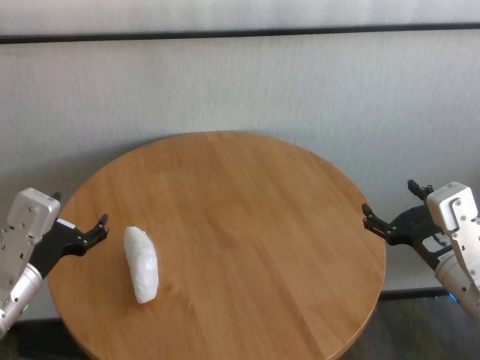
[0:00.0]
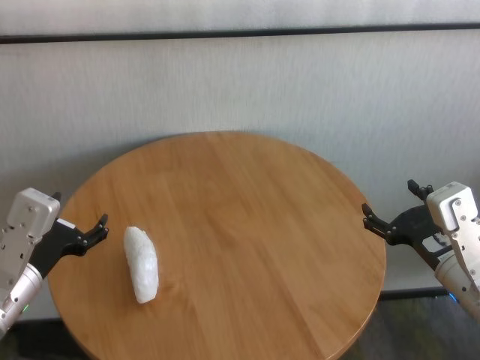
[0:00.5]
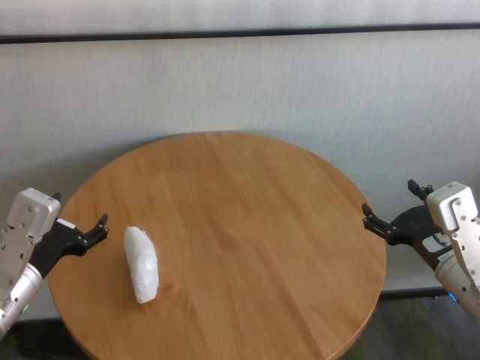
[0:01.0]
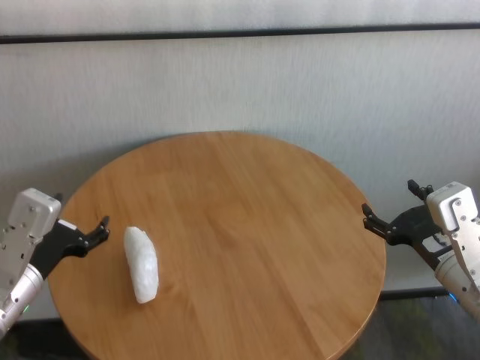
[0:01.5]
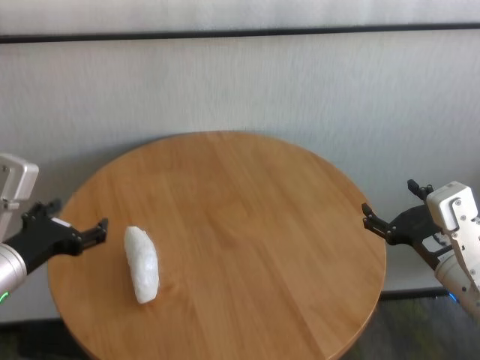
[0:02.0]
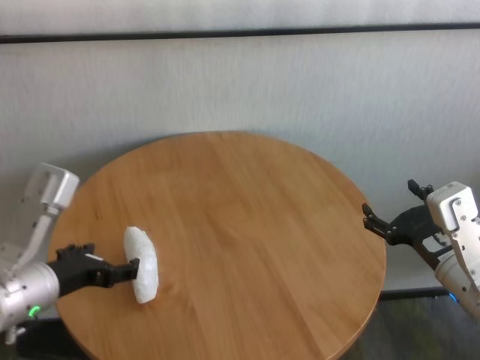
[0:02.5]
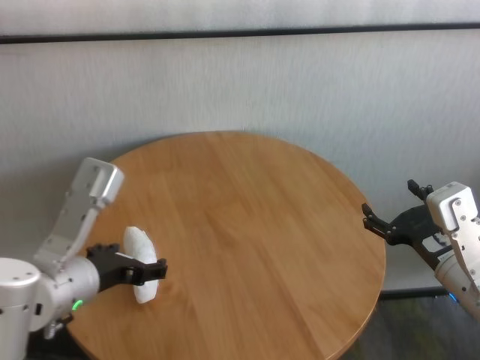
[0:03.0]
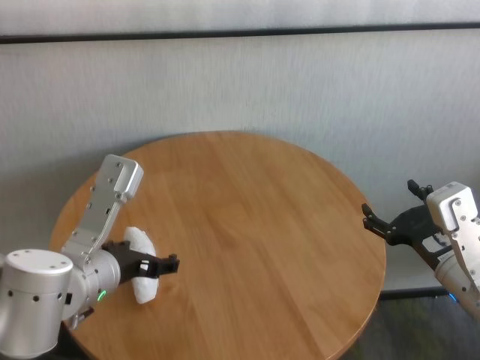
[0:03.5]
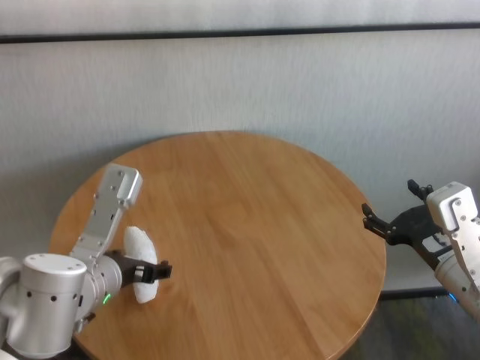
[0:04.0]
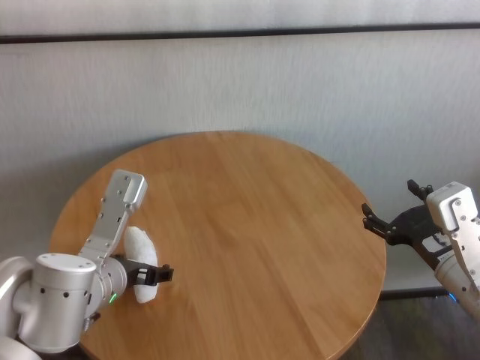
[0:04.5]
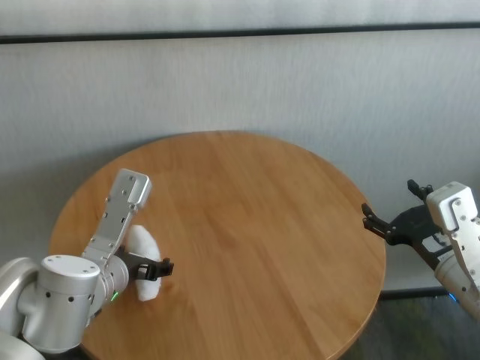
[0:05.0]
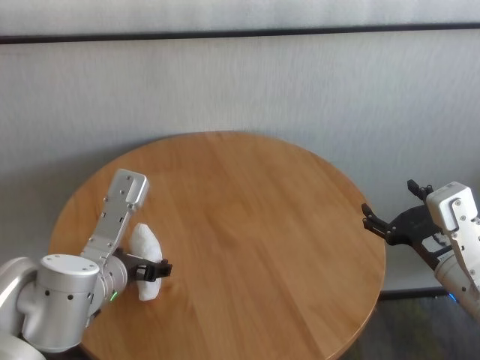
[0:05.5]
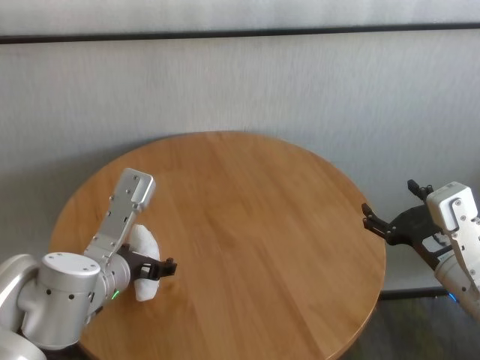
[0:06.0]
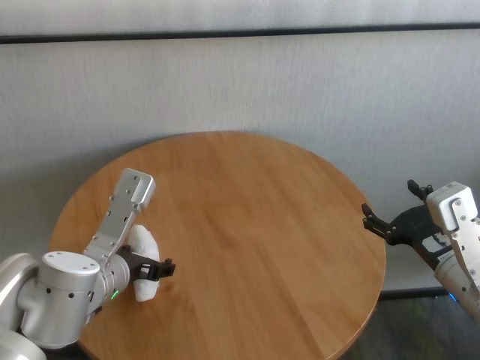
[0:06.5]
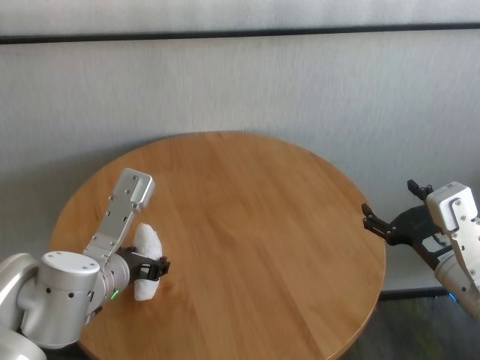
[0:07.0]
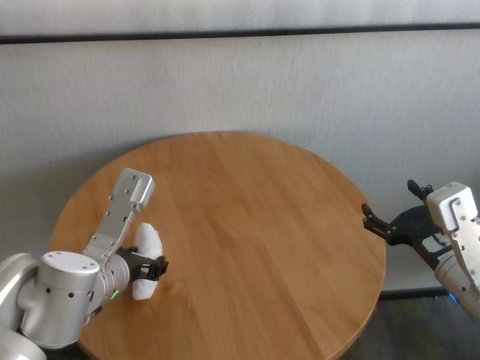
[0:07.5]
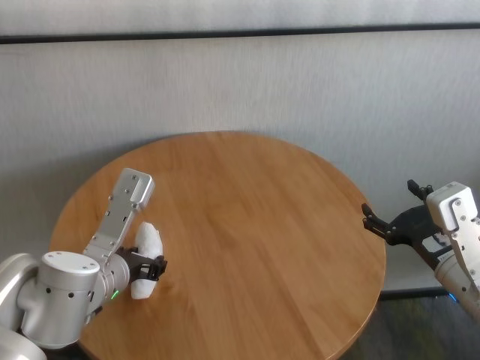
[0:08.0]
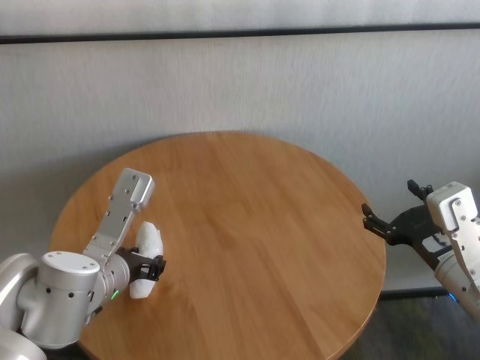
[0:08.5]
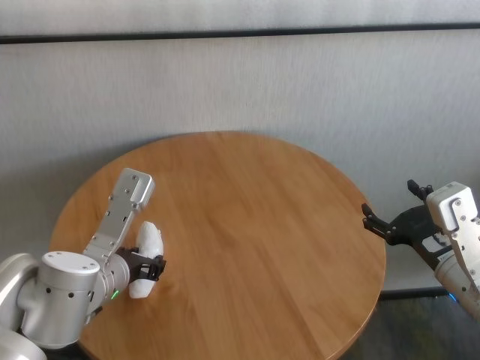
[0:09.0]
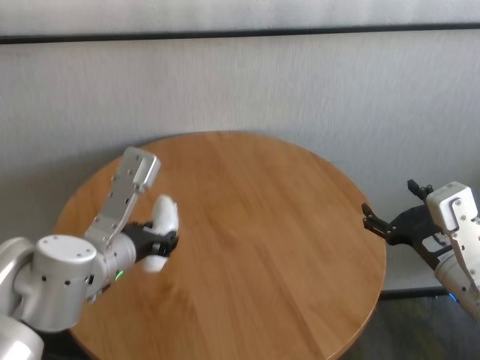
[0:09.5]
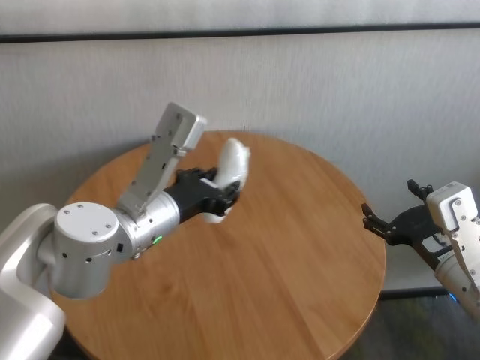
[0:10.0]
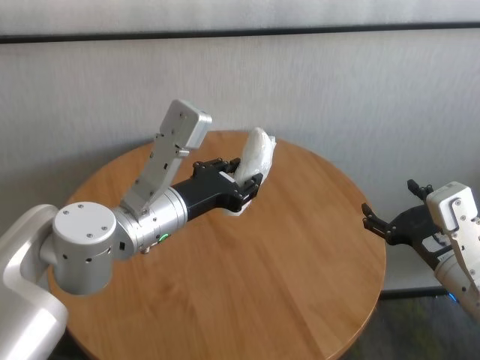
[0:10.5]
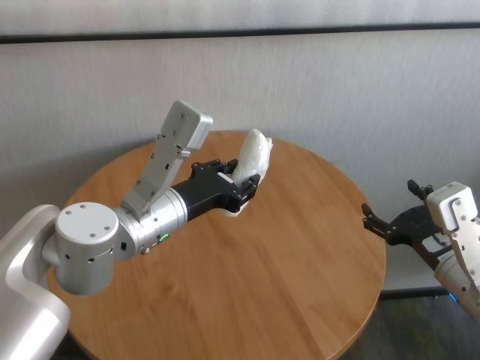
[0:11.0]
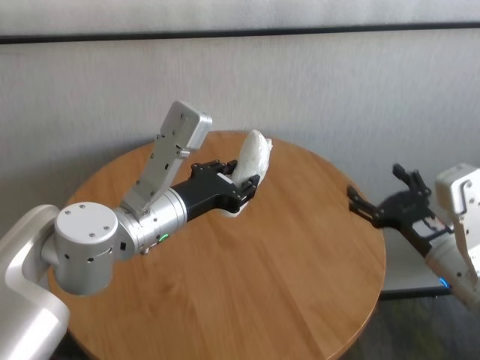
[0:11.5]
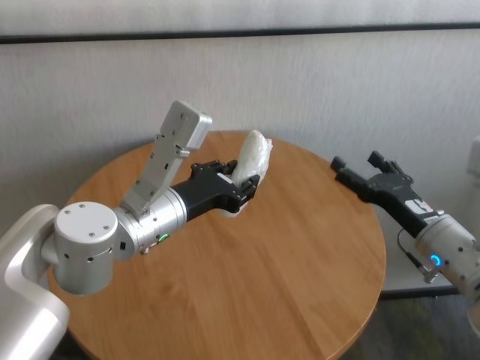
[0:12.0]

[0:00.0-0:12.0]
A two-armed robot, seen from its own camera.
Task of the whole recording: One hand took the sandbag from the other hand and placed it on the table.
Step, 0:00.0 to 0:09.0: Grasp the paper ball with left gripper.

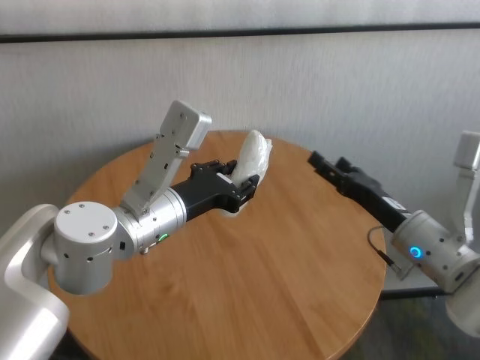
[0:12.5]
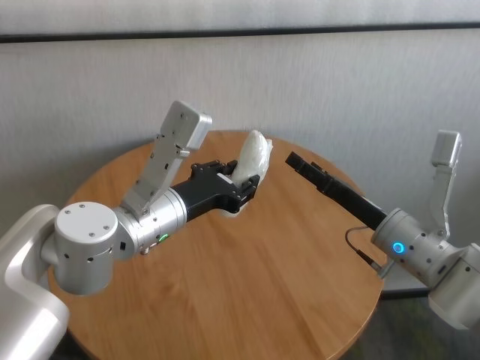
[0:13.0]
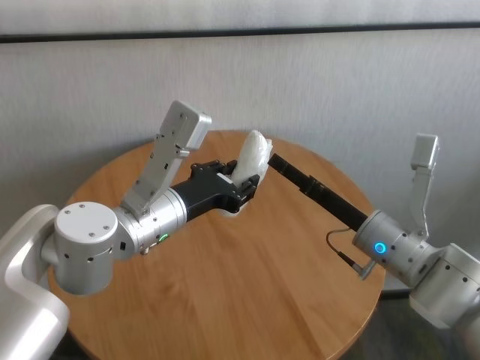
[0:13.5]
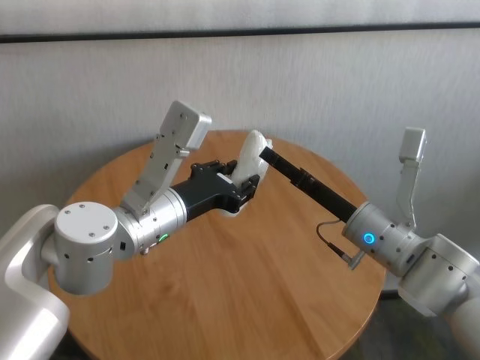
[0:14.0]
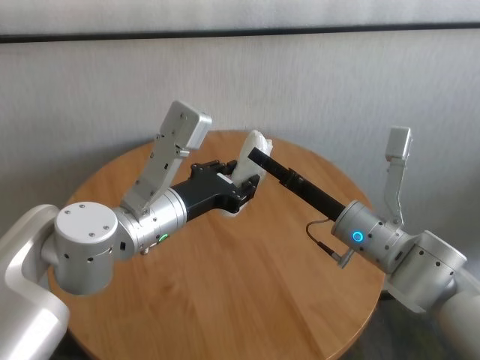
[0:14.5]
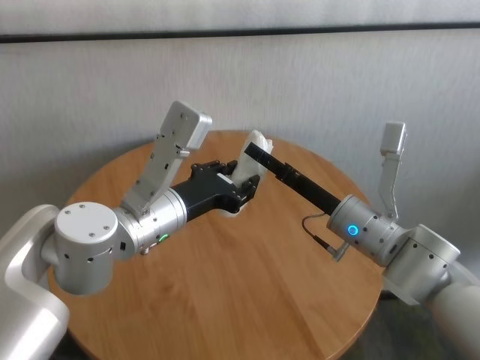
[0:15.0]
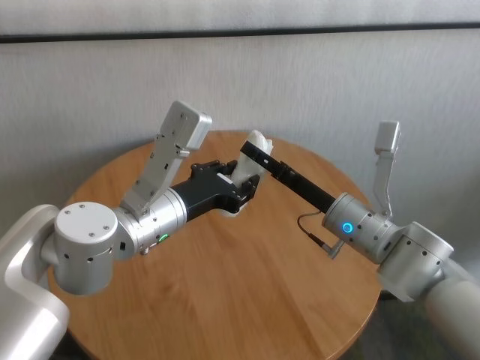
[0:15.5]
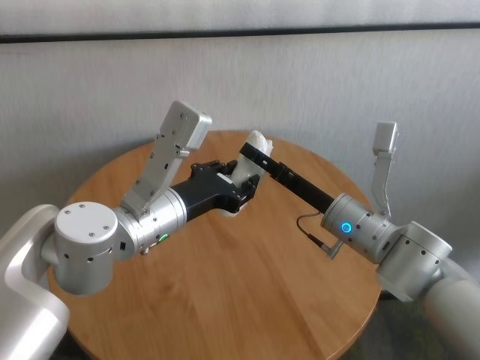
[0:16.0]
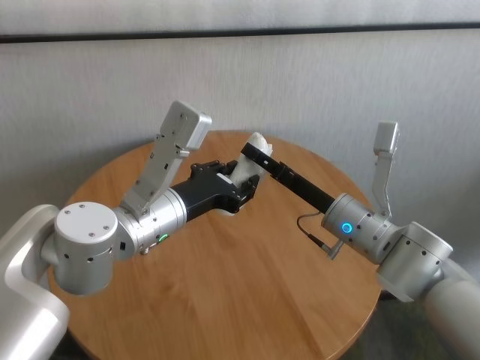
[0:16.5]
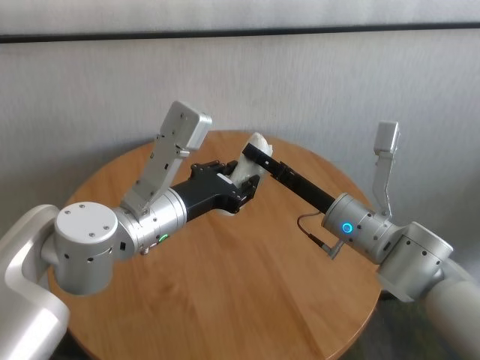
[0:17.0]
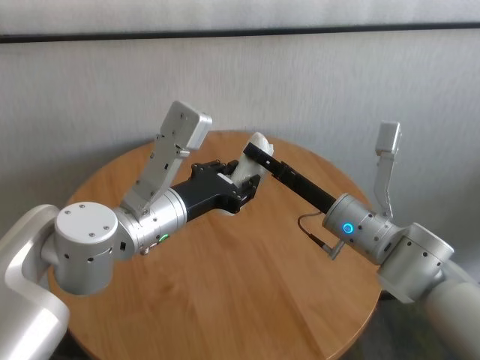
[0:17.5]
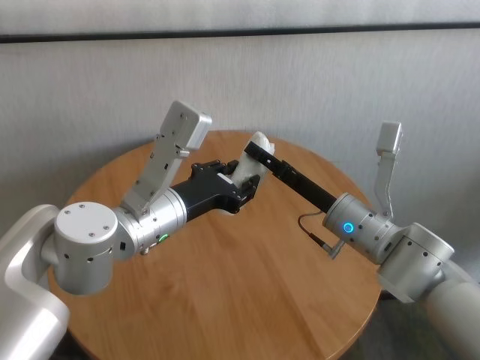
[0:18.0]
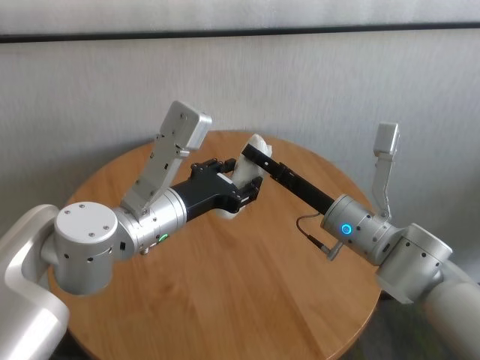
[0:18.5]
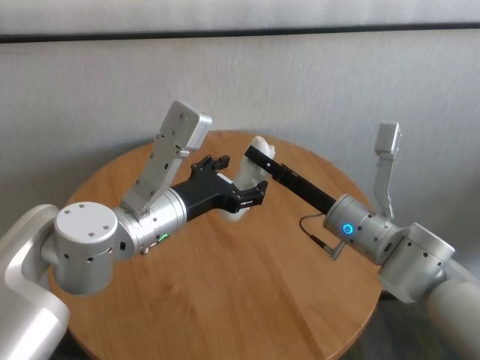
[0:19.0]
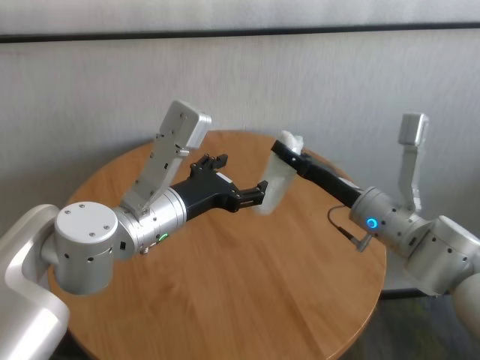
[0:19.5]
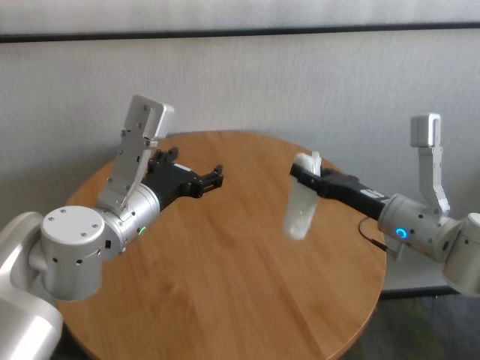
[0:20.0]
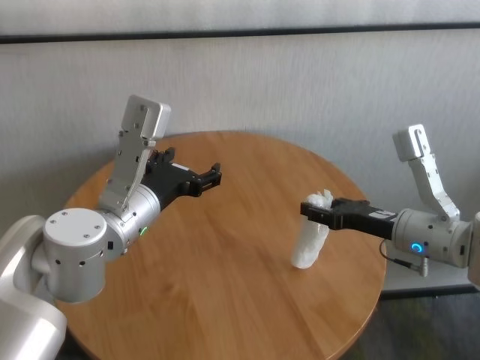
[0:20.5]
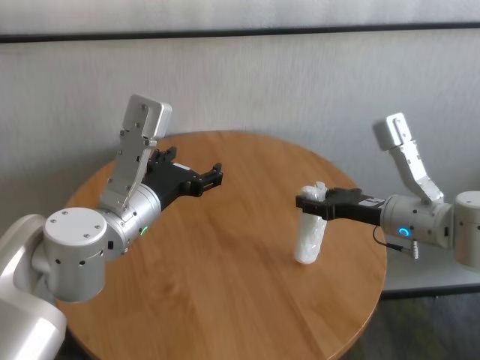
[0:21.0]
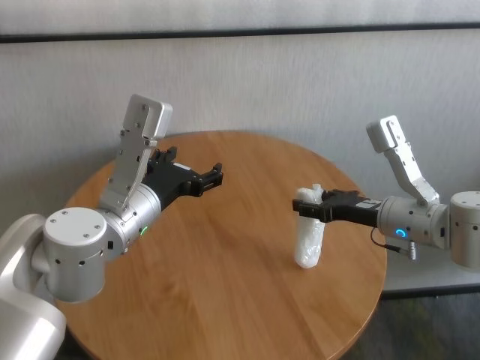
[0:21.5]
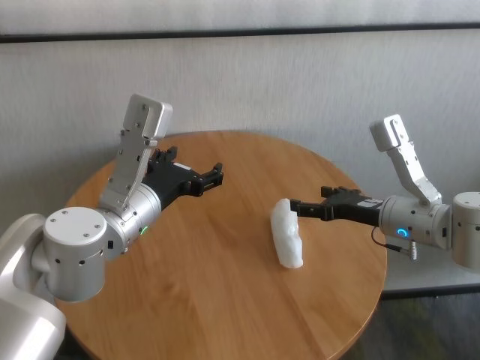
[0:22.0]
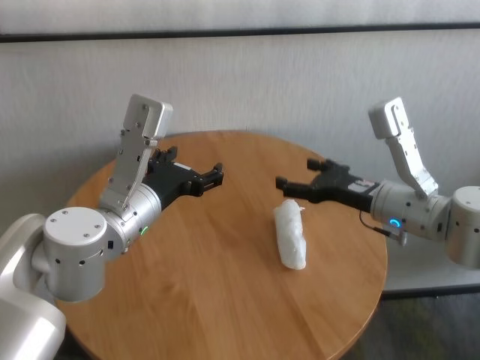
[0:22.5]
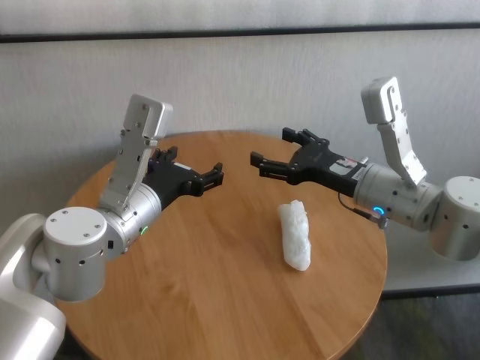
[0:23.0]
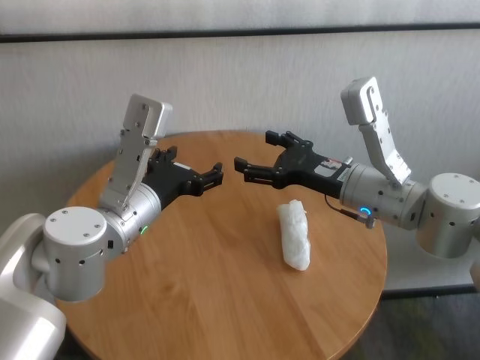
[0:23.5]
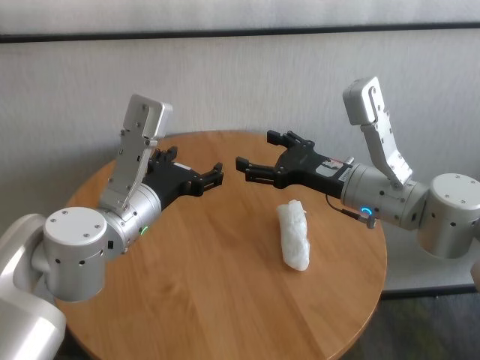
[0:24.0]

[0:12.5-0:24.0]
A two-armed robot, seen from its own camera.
Task of the whole recording: One hand took the sandbag from the other hand and placed it on the table.
Step, 0:12.5 to 0:19.0: Pass the paper ball to the right gripper.
Step, 0:19.5 to 0:22.0: Place the paper ball on the table with right gripper.

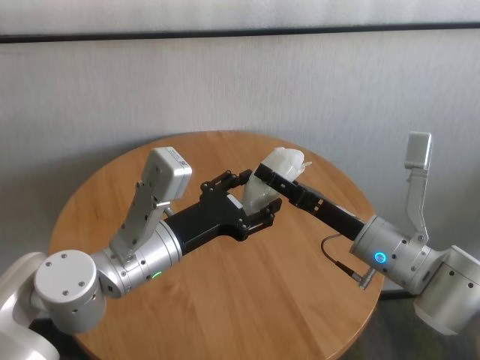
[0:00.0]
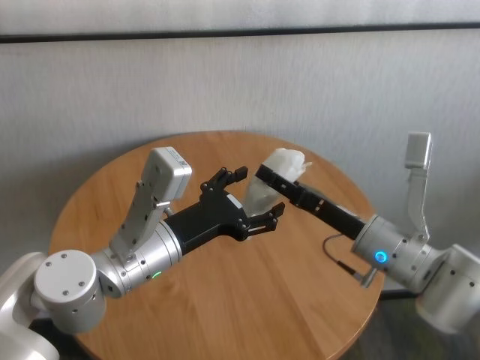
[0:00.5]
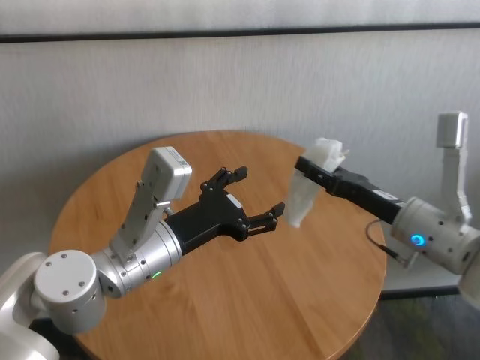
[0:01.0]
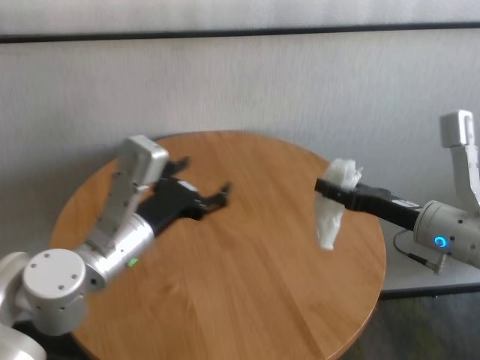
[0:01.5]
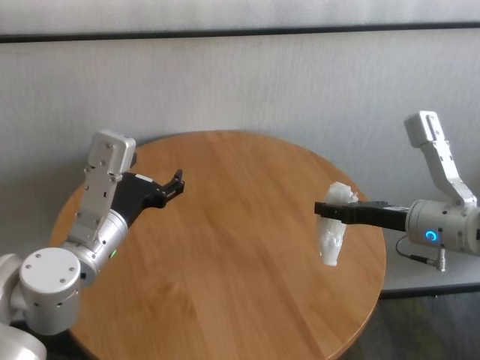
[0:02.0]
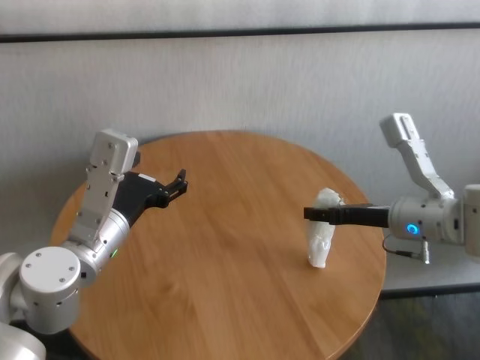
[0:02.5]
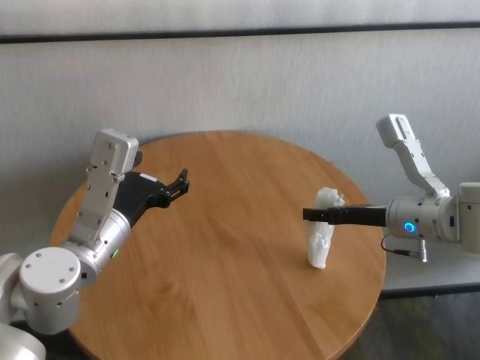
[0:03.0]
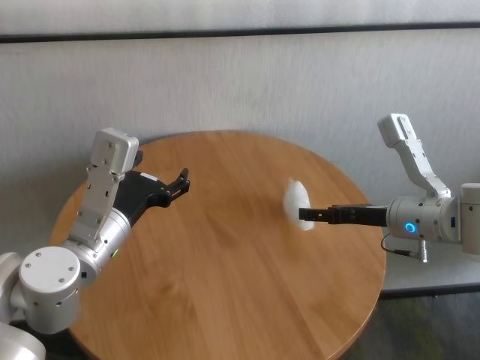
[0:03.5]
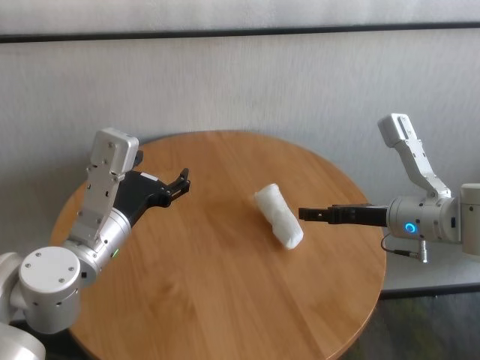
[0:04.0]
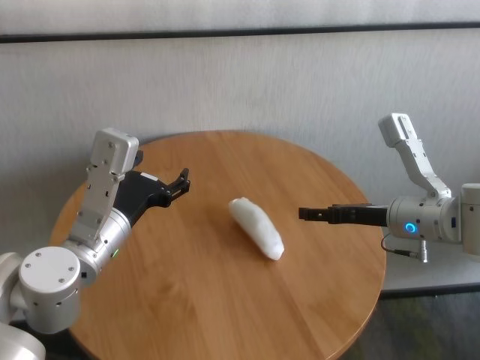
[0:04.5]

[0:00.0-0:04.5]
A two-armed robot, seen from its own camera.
Task of the whole recording: One hand took the sandbag from the other hand and placed it on the table.
Step, 0:00.5 to 0:03.5: Place the paper ball on the table with right gripper.
